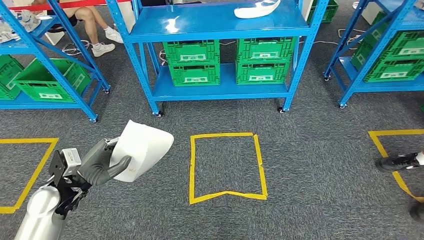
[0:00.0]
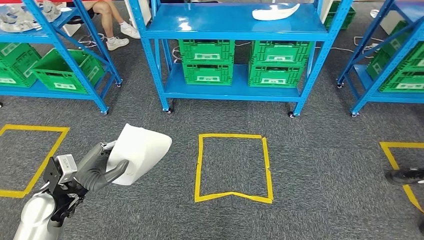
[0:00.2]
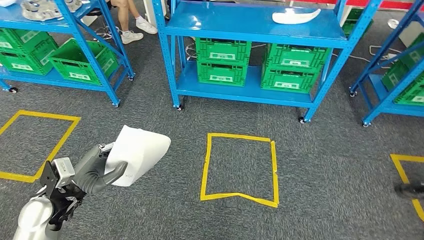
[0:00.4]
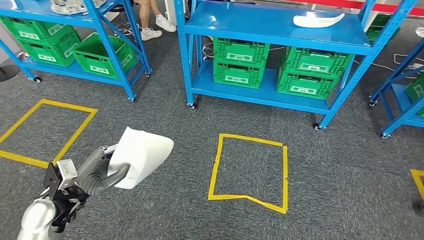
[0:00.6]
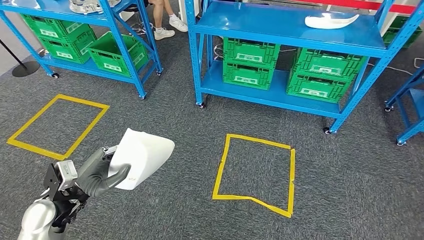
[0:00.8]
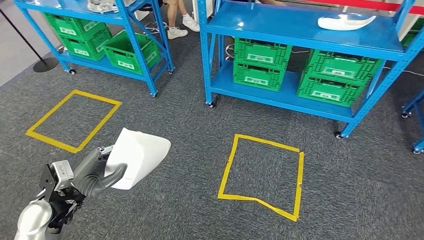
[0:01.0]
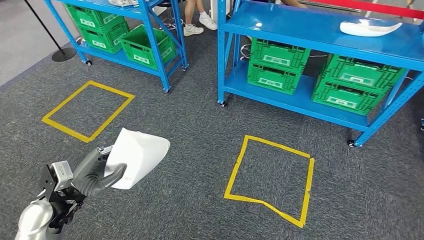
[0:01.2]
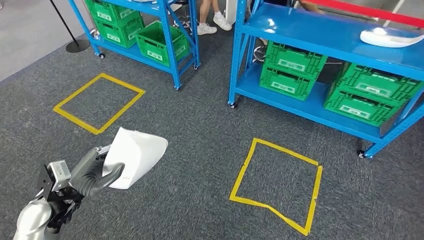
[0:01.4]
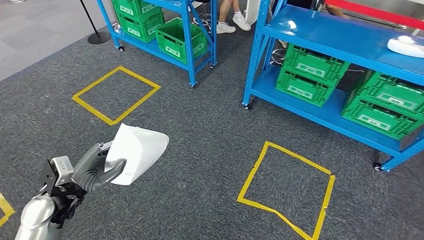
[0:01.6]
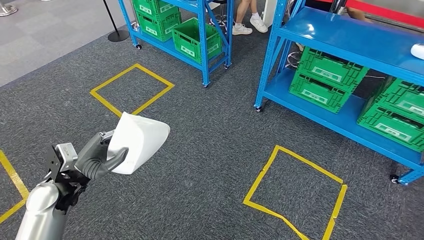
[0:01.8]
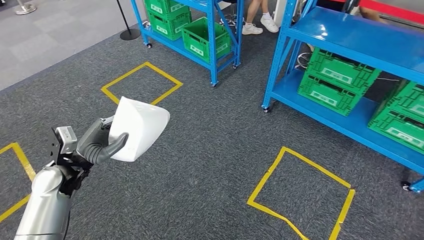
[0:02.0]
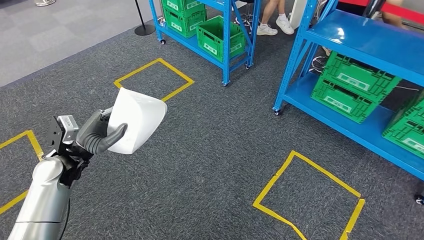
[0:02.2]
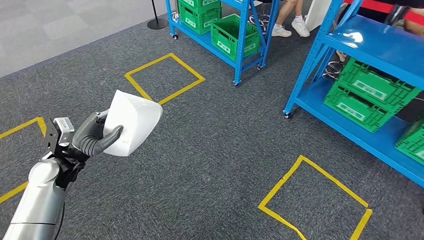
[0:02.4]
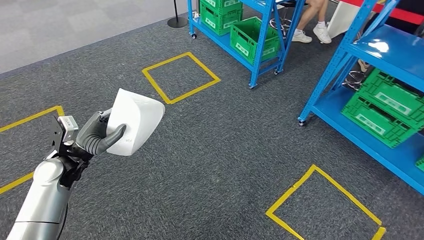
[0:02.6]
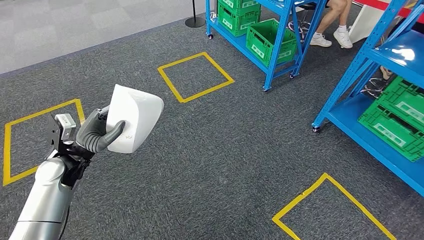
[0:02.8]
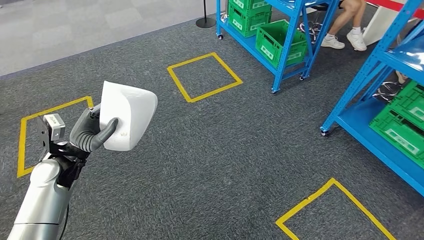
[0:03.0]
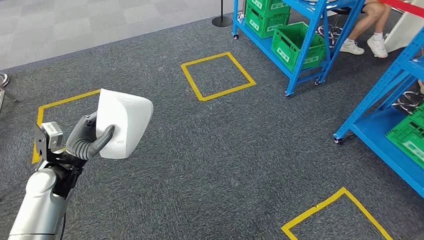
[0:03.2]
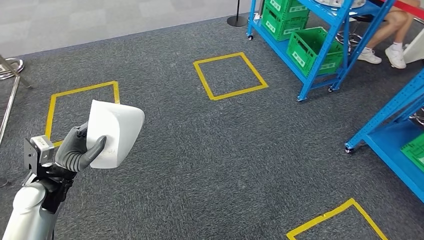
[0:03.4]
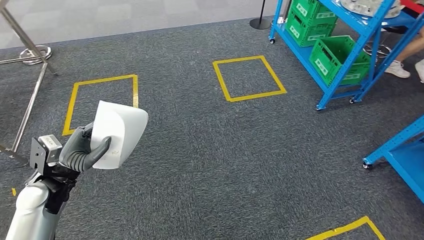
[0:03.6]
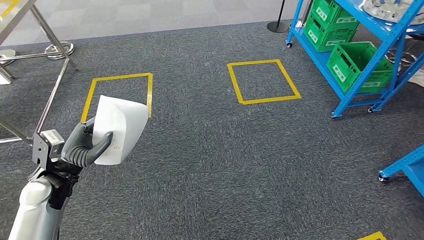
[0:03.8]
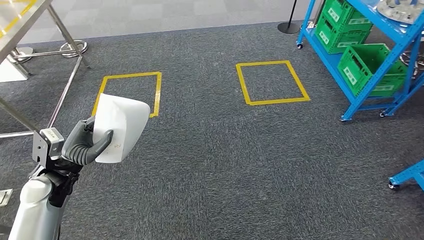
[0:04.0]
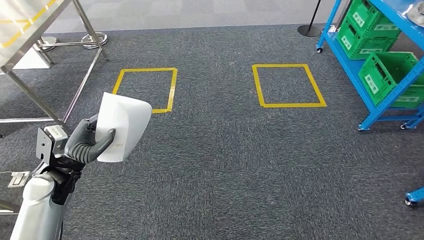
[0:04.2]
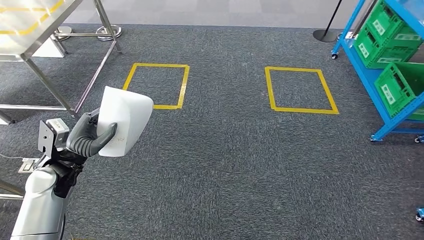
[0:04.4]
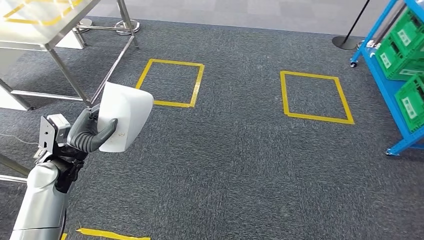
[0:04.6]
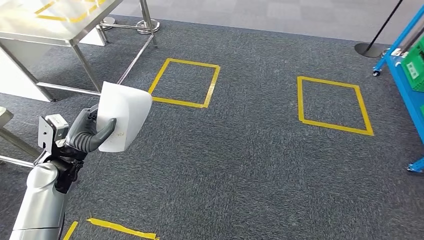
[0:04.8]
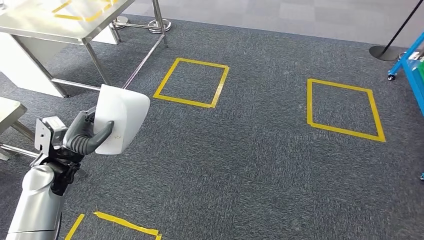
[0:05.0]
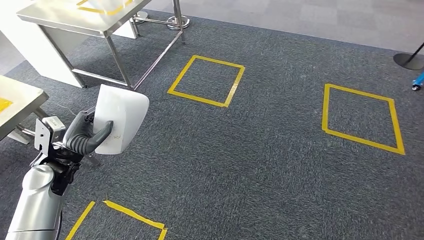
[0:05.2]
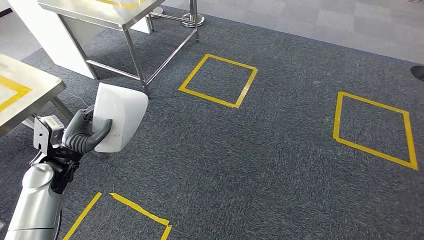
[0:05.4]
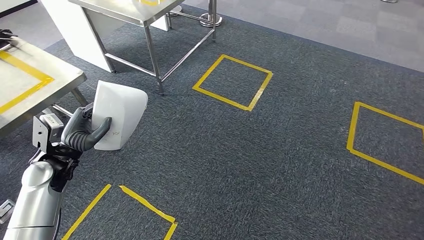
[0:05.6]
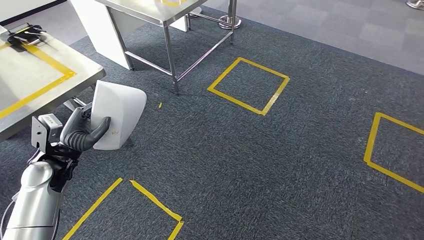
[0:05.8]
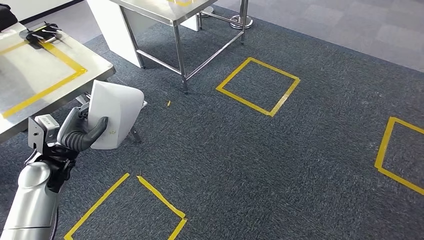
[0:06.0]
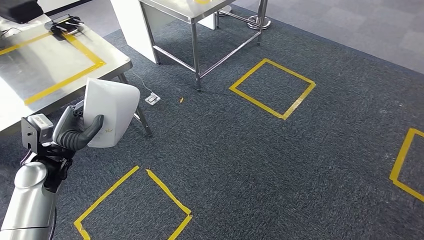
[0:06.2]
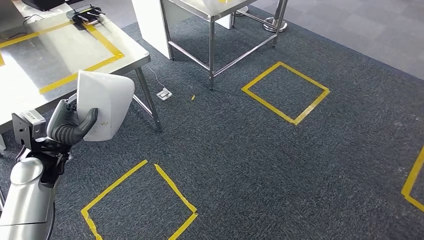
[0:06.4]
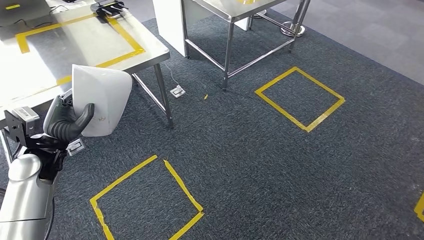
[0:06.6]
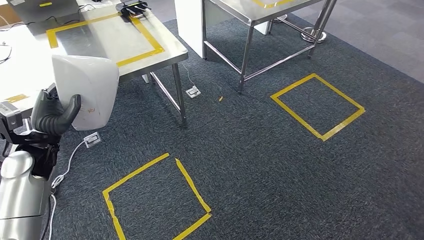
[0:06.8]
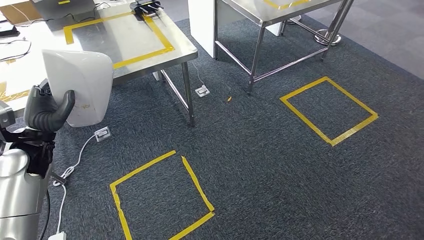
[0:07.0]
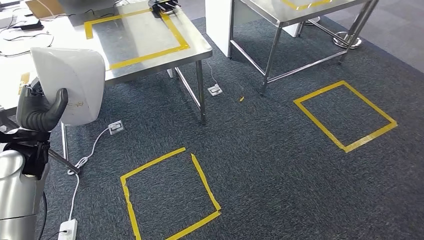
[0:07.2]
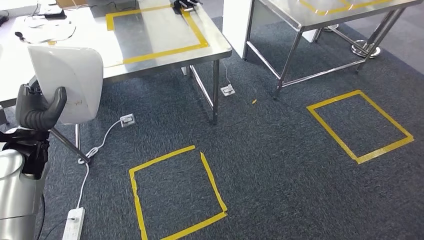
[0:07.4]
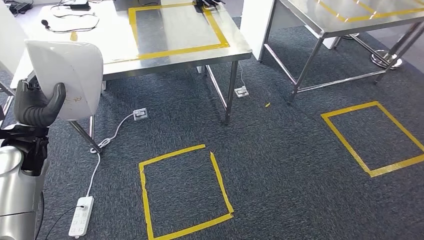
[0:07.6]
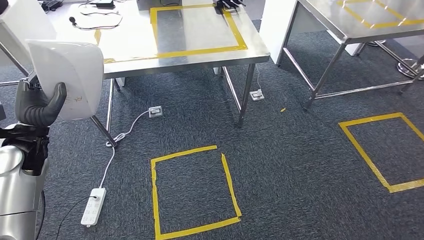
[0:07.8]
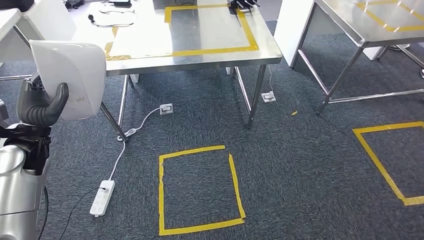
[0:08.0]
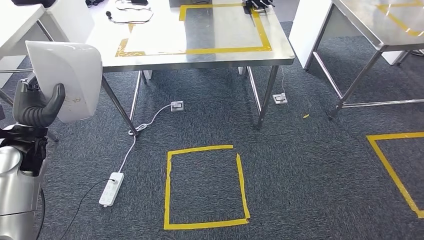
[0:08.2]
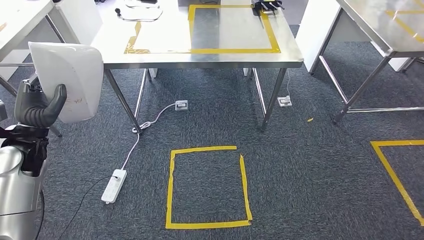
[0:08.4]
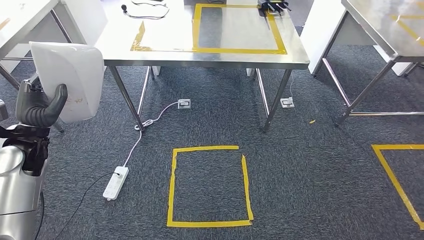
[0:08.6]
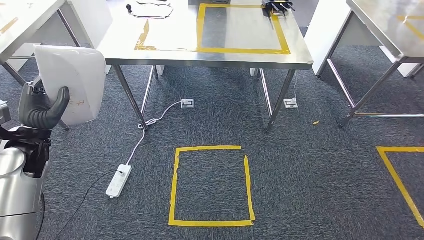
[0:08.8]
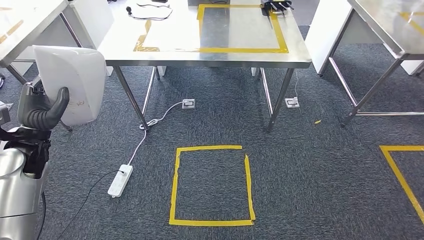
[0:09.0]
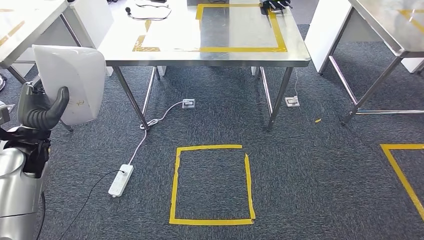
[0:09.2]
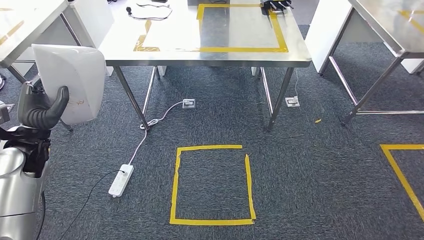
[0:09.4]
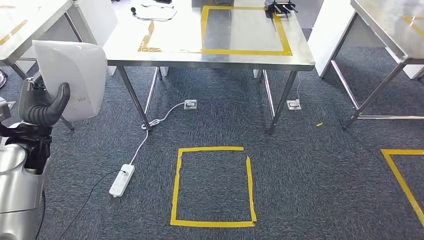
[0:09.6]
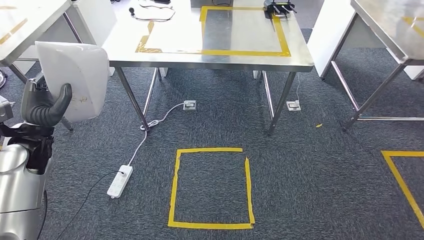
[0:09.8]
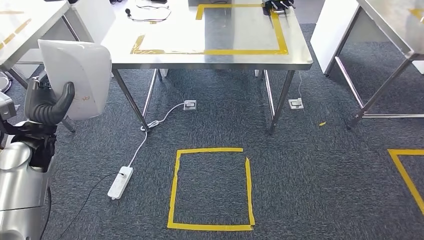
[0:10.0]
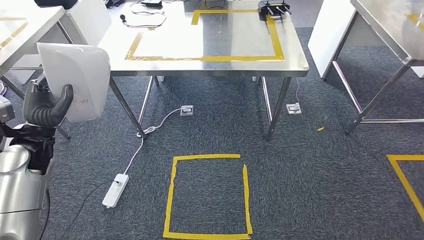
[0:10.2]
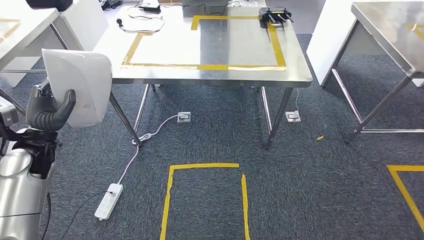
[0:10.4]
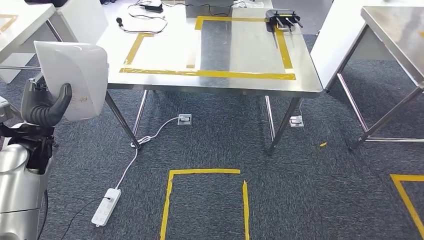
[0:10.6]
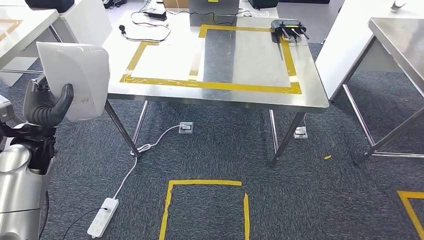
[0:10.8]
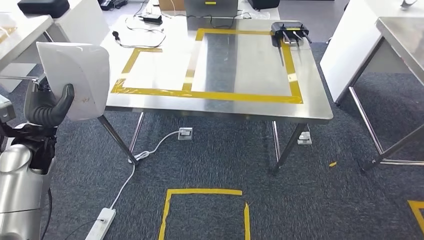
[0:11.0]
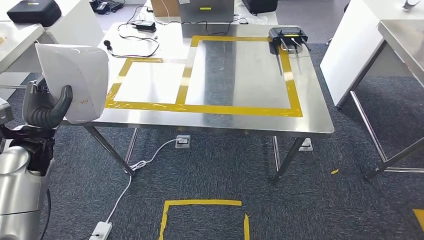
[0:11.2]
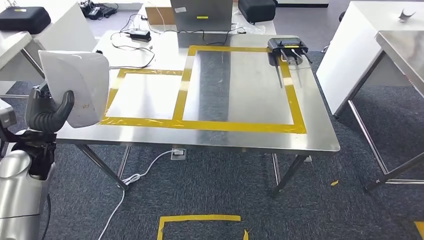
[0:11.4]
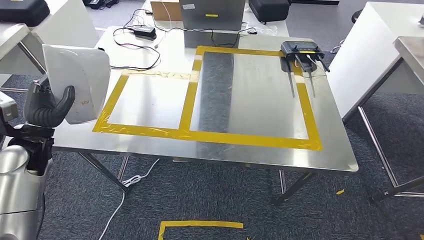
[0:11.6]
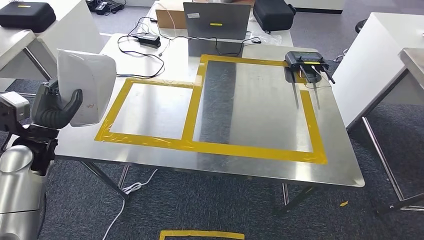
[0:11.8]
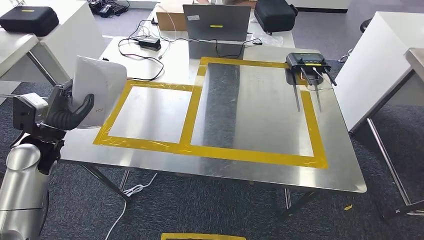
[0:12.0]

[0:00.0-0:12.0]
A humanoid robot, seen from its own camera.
Step, 0:00.0 to 0:07.6: Move the small component to the workbench.

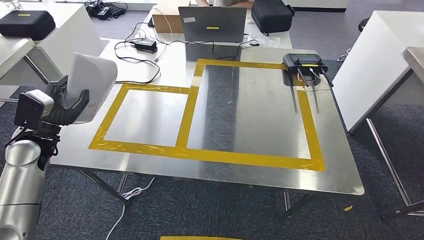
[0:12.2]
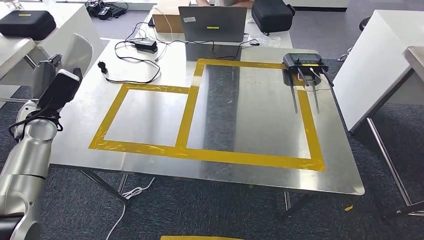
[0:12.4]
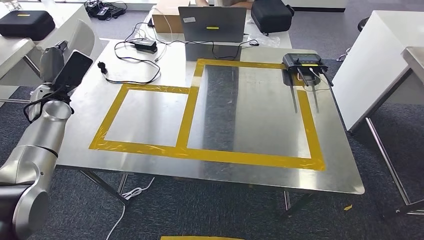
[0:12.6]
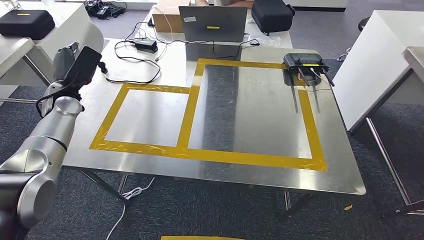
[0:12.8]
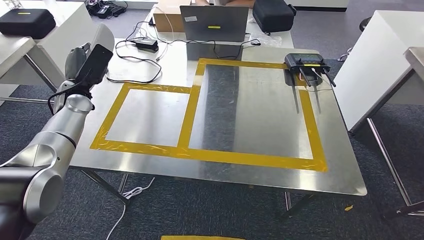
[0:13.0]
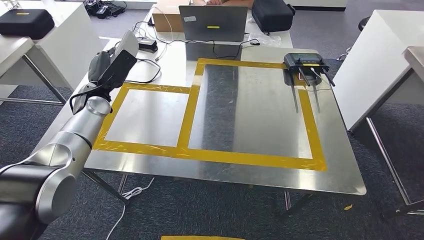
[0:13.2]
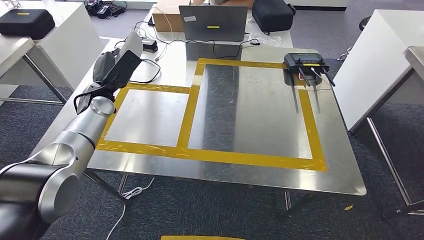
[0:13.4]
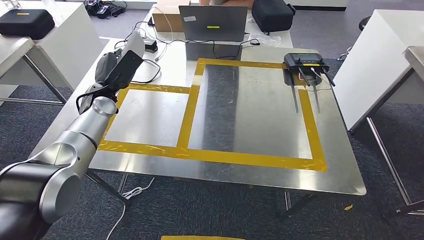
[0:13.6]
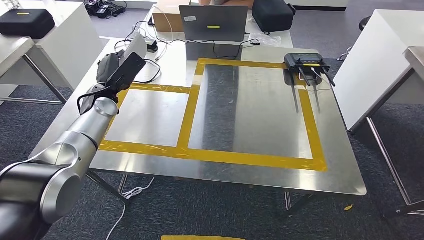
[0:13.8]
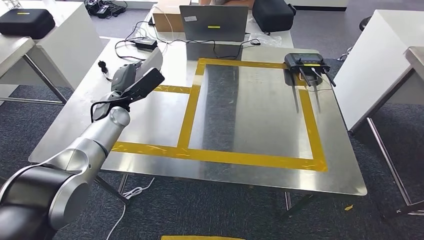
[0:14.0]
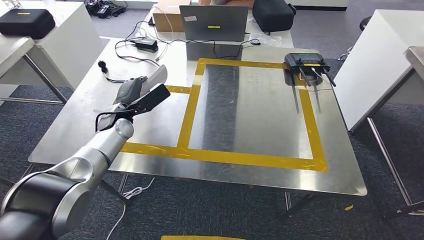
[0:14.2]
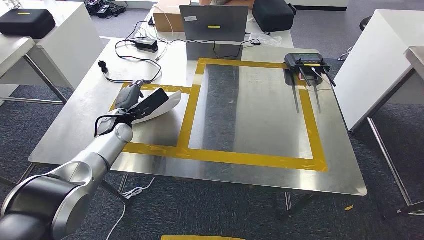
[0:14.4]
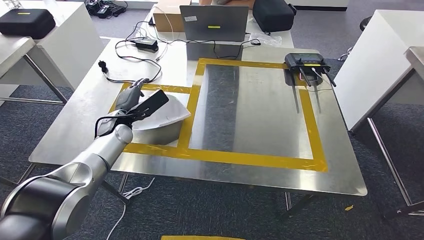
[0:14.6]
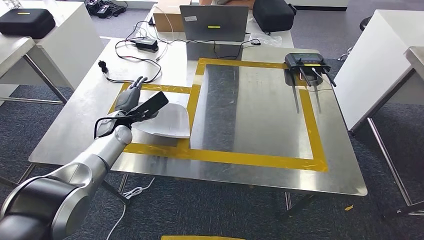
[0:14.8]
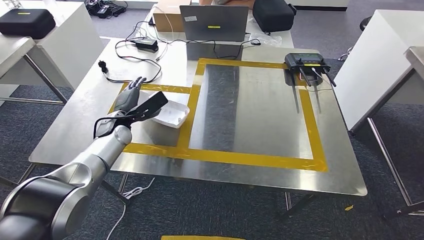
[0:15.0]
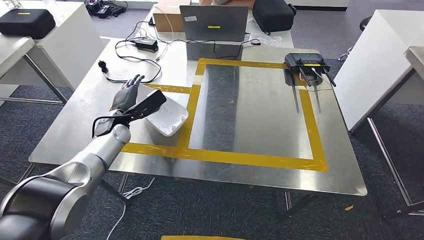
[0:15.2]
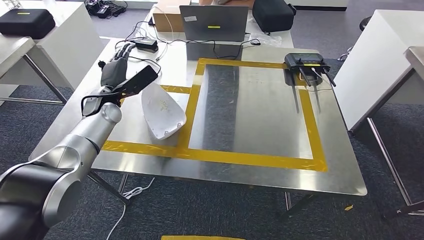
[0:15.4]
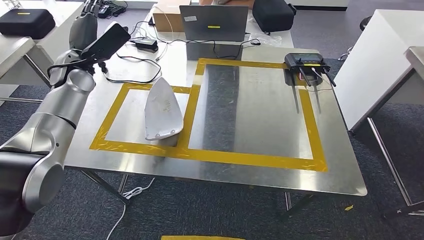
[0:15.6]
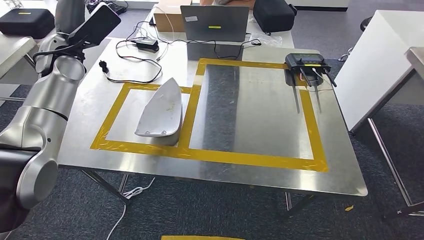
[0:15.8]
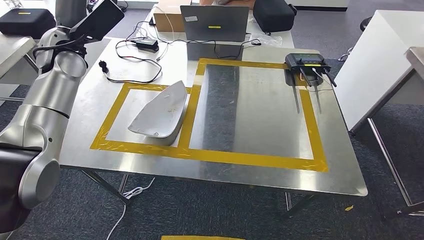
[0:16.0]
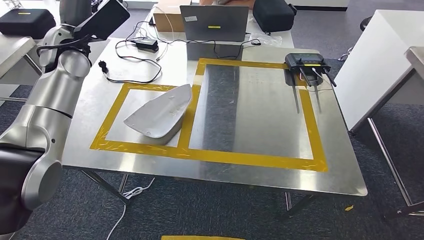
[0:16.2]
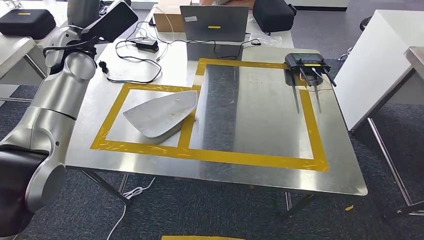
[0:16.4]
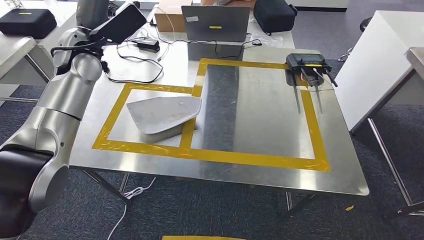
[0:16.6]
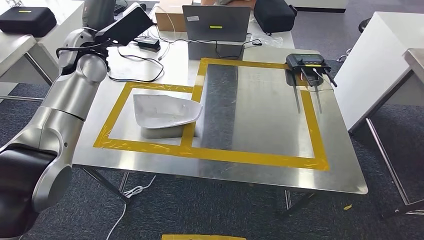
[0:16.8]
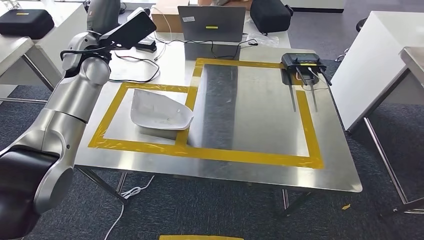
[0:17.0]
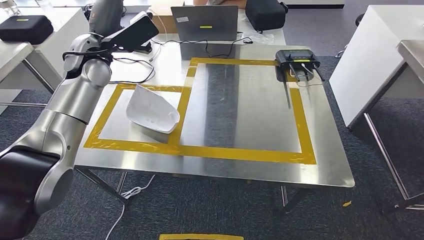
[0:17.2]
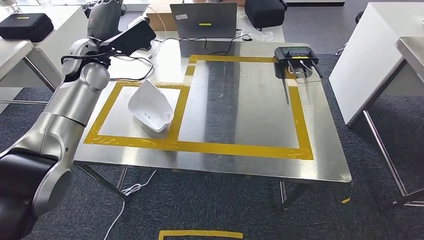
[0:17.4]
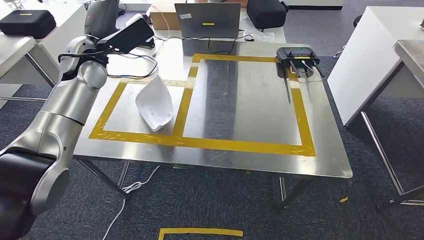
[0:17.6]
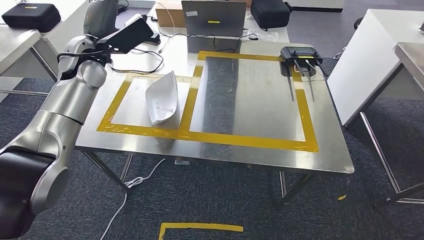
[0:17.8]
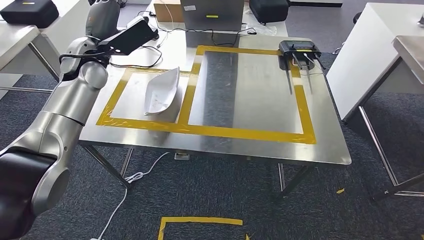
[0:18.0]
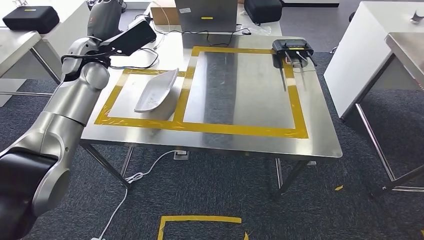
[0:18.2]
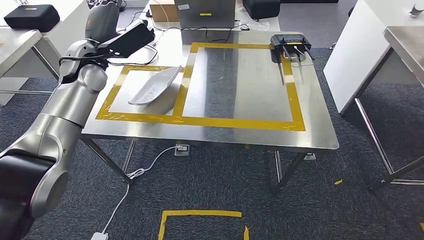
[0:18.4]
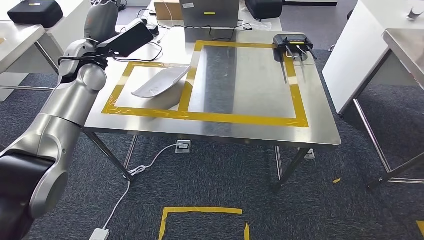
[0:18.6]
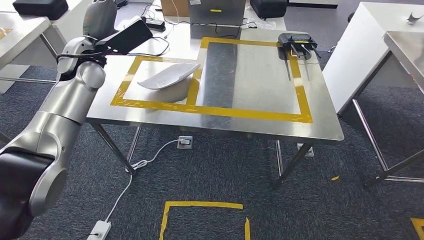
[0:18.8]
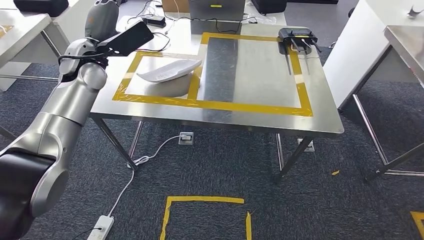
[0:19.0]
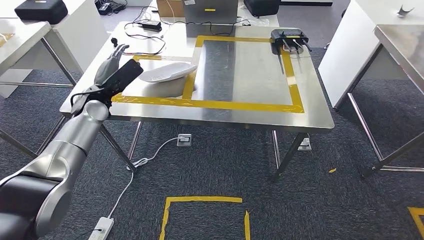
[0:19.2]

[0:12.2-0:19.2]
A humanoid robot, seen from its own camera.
Step, 0:12.2 to 0:15.8: Insert the small component into the corresponding slot on the workbench.
0:12.2 to 0:13.6: The left hand heads forward and to the right, covering some 20 cm.
0:13.6 to 0:15.0: The left hand travels downward by approximately 10 cm.
0:15.0 to 0:16.4: The left hand moves upward, roughly 25 cm.
